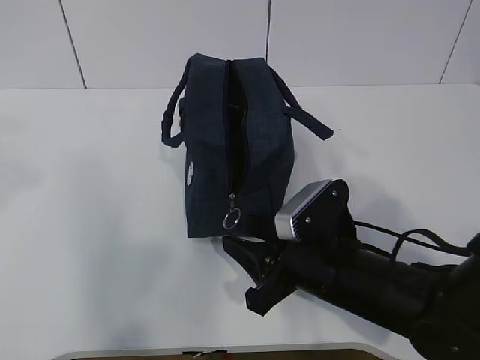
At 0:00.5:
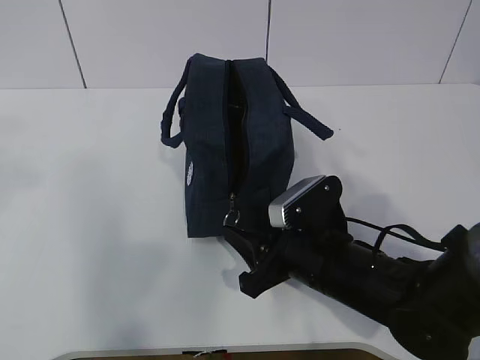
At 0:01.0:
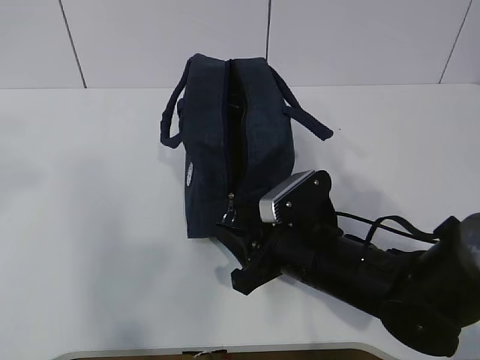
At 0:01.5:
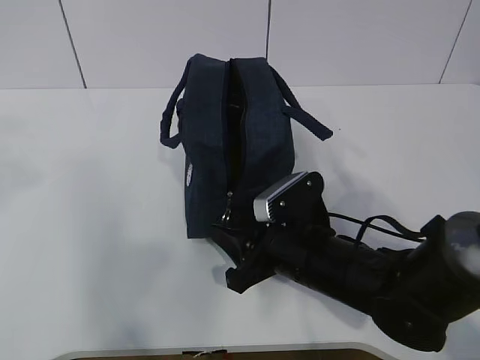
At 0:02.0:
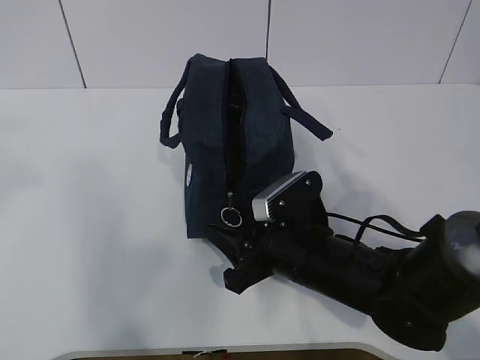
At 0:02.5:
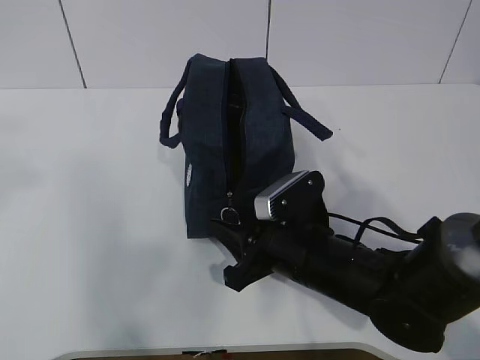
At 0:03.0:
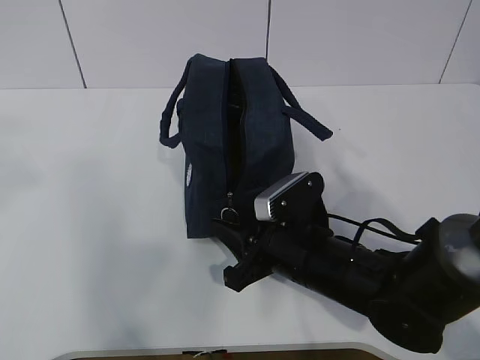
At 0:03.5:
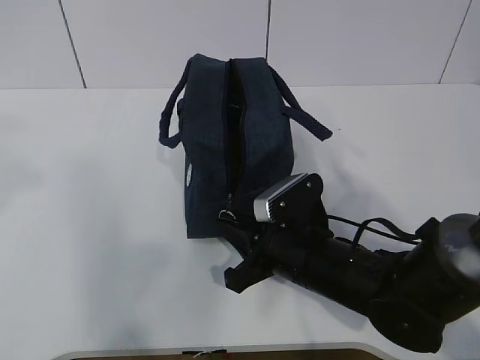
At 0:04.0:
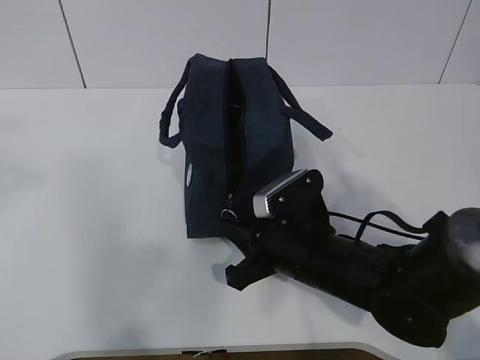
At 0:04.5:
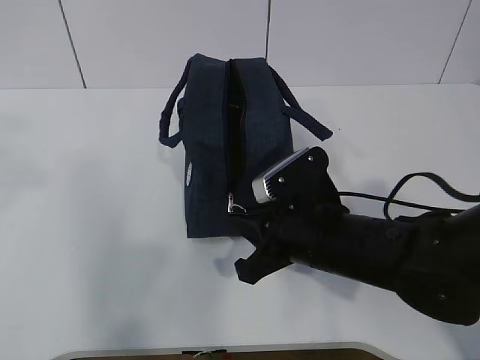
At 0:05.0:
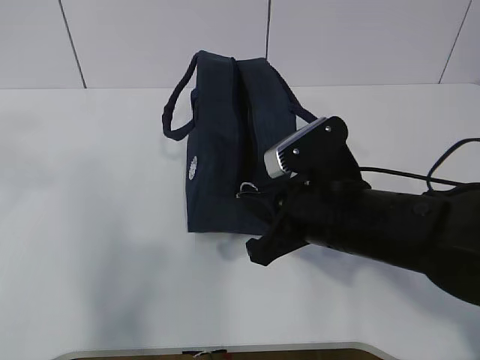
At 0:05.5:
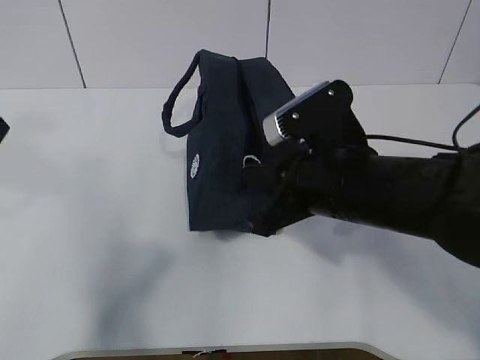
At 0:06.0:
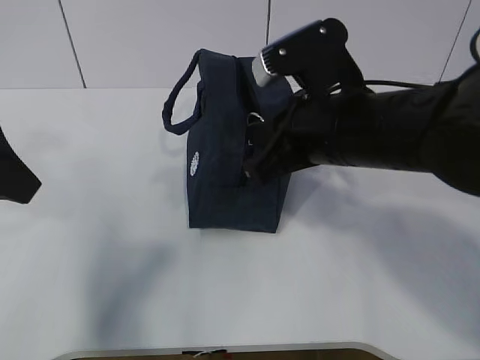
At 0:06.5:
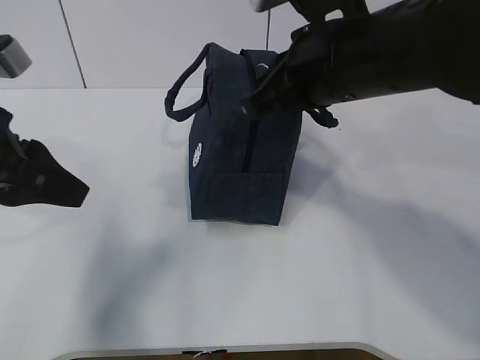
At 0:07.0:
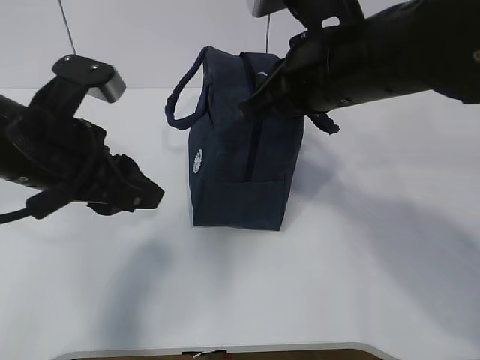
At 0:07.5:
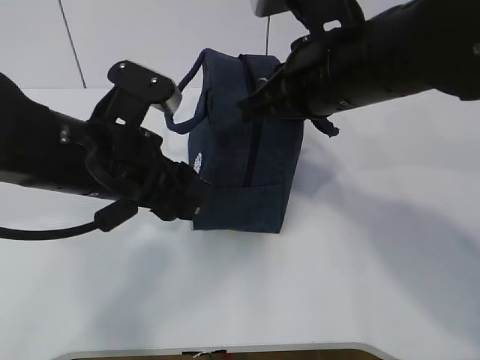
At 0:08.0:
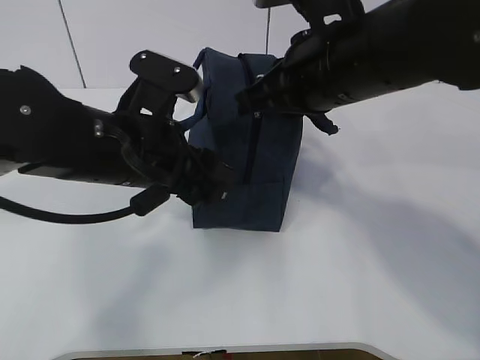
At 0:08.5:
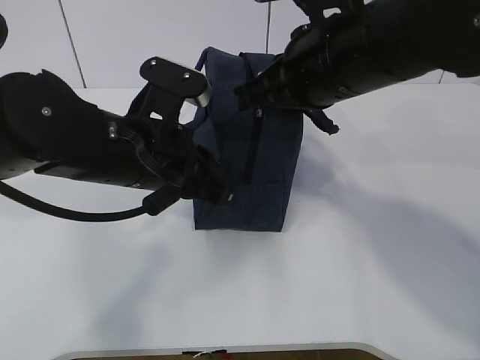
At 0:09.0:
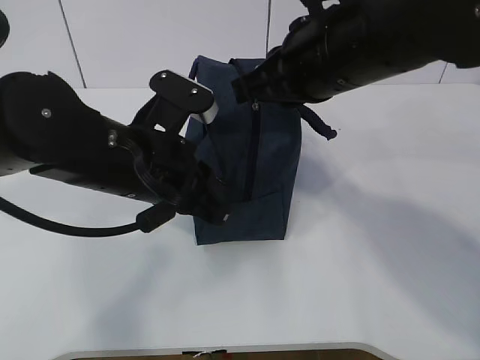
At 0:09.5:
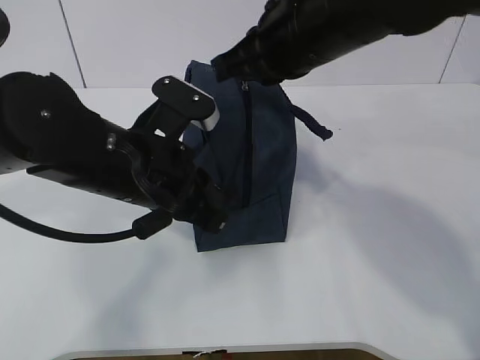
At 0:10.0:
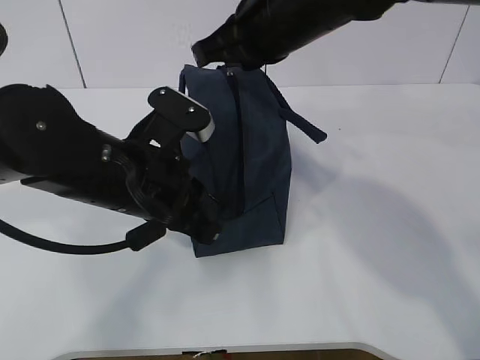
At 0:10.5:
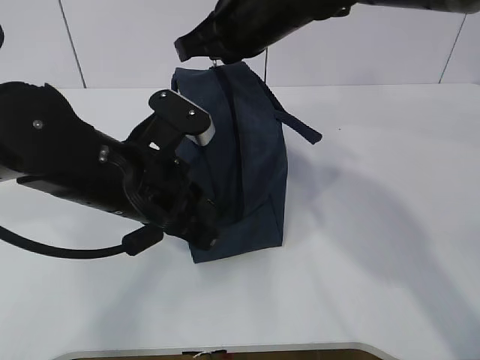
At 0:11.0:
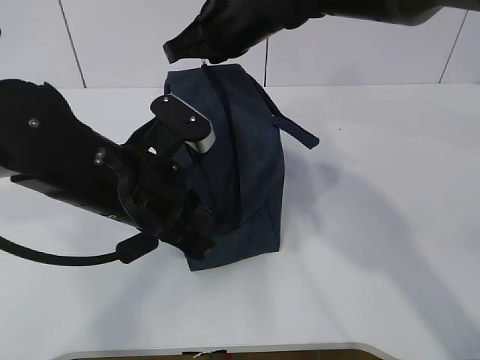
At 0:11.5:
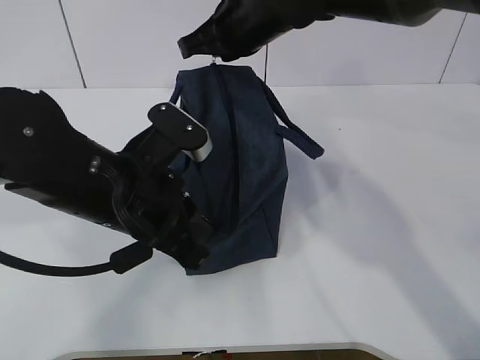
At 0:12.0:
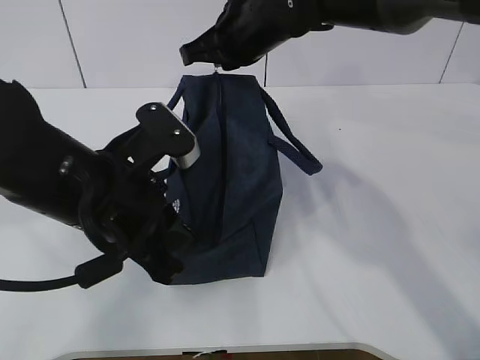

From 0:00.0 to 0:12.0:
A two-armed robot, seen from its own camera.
Step, from 0:03.0 to 0:08.0: Grab the lunch bag with your left hand.
From 0:00.0 to 0:02.0: The grippers move only a little.
From 0:02.0 to 0:04.0: The right gripper closes.
From 0:04.0 to 0:06.0: The right gripper heads upward, covering some 15 cm. The left gripper travels downward and forward by roughly 15 cm.
From 0:06.0 to 0:08.0: The right gripper shifts by approximately 5 cm, while the left gripper shifts approximately 15 cm to the right and downward.
From 0:08.0 to 0:10.0: The right gripper goes roughly 5 cm forward. Meanwhile the left gripper closes up.
From 0:10.0 to 0:12.0: The right gripper moves forward, some 10 cm.

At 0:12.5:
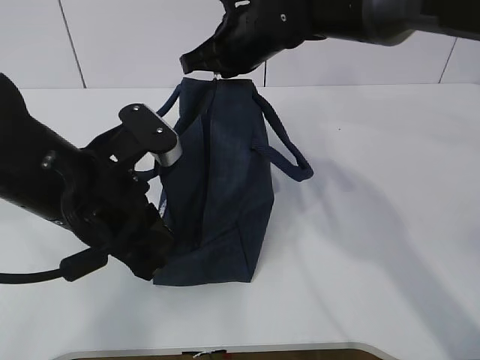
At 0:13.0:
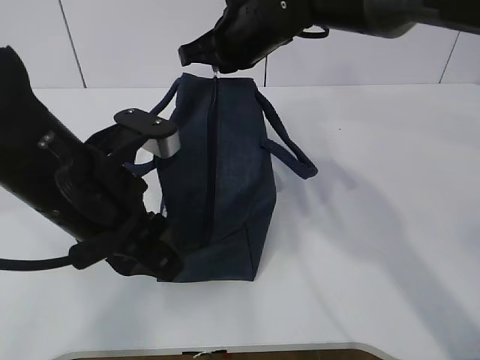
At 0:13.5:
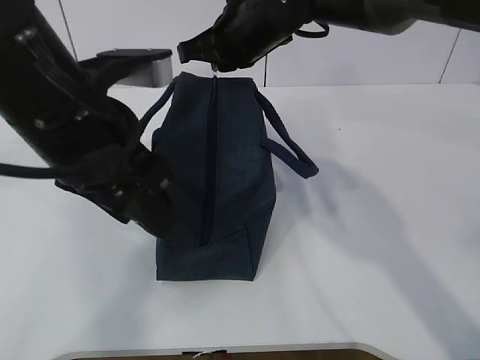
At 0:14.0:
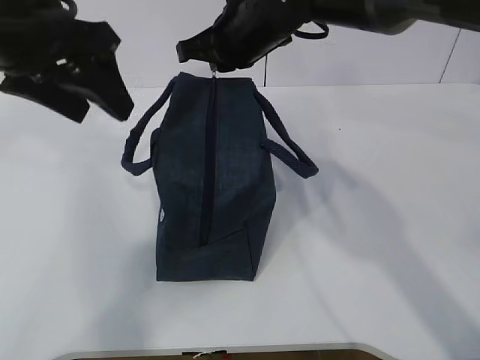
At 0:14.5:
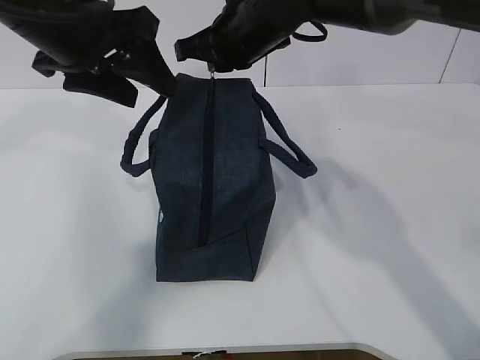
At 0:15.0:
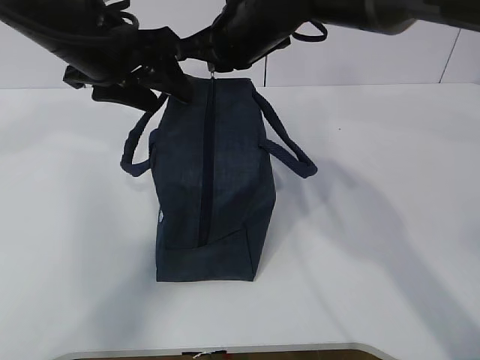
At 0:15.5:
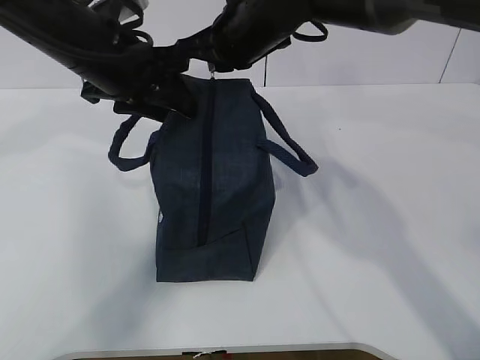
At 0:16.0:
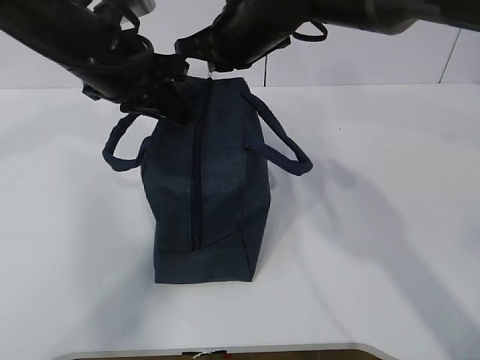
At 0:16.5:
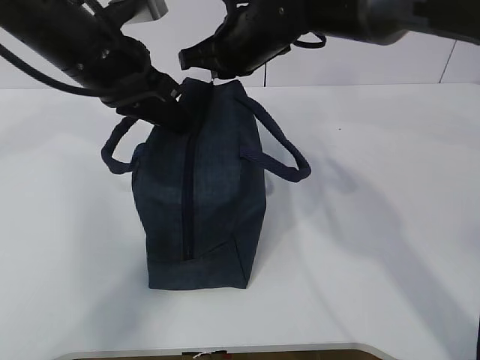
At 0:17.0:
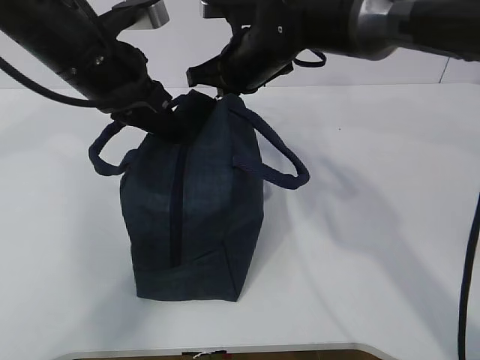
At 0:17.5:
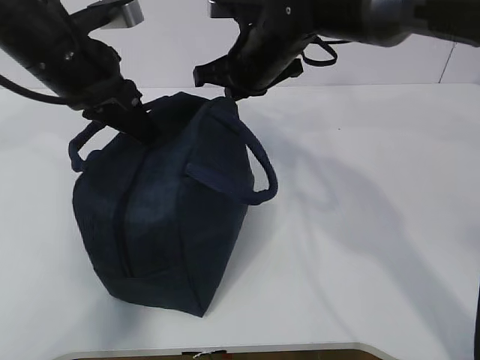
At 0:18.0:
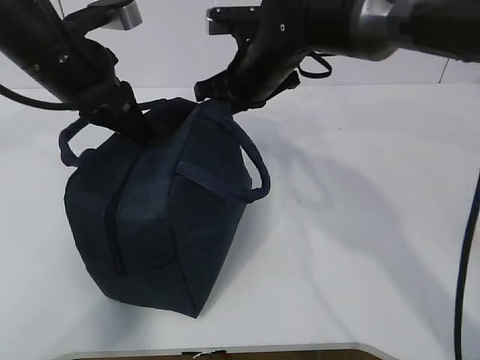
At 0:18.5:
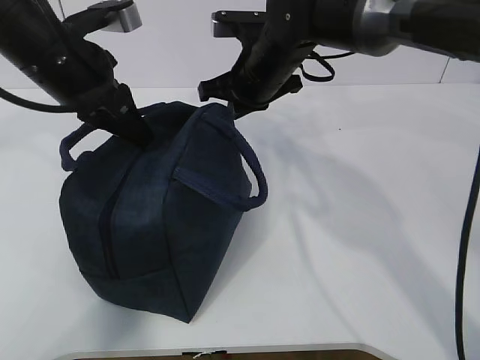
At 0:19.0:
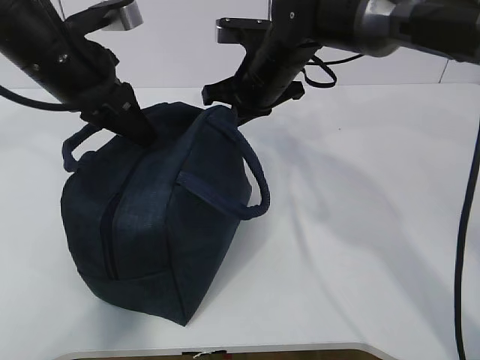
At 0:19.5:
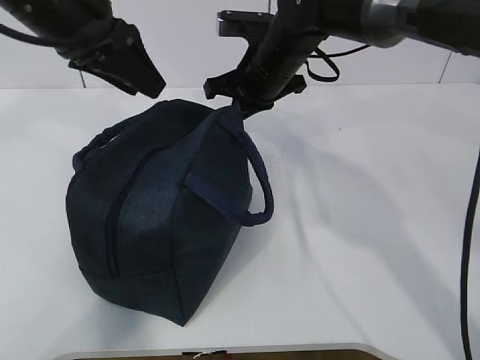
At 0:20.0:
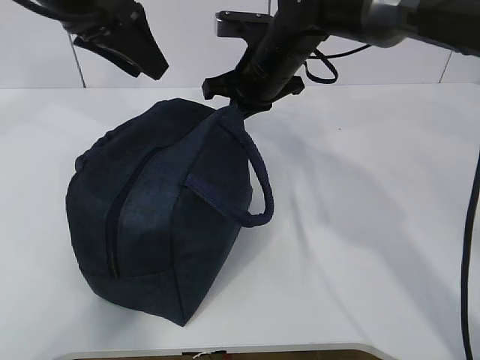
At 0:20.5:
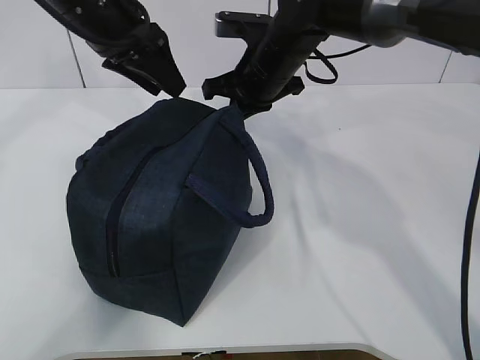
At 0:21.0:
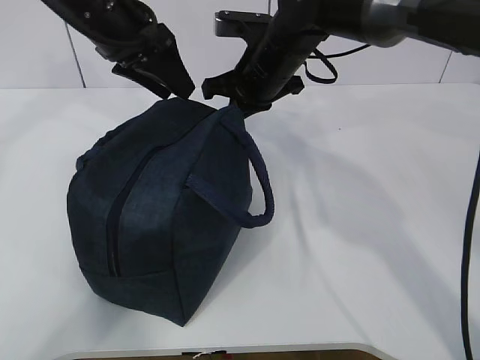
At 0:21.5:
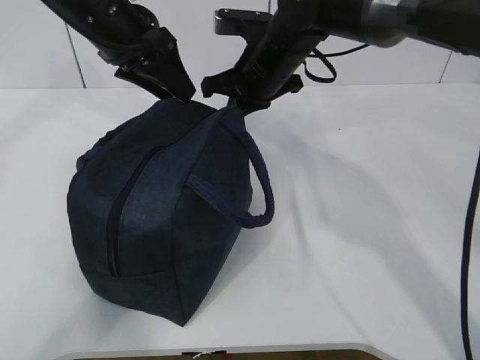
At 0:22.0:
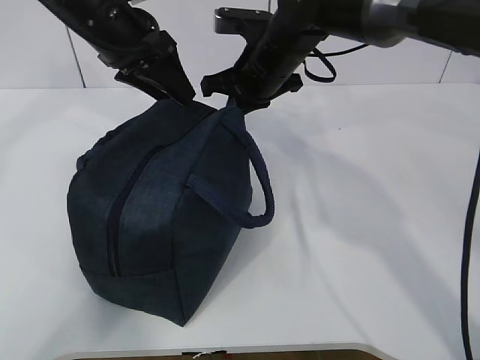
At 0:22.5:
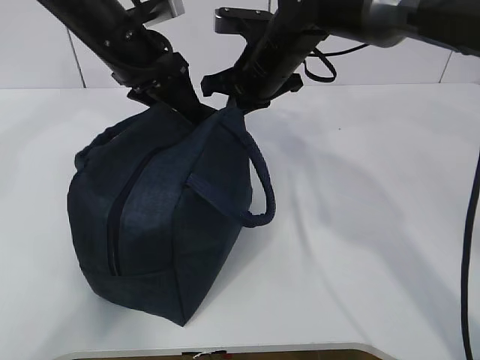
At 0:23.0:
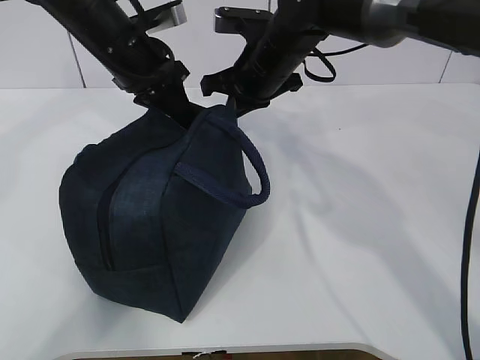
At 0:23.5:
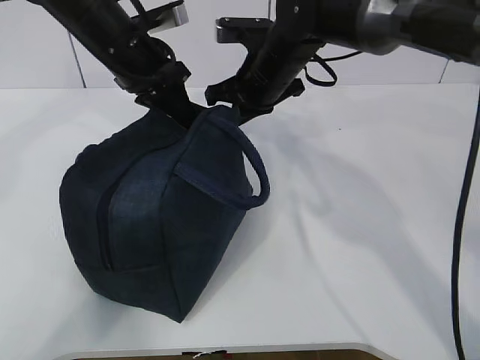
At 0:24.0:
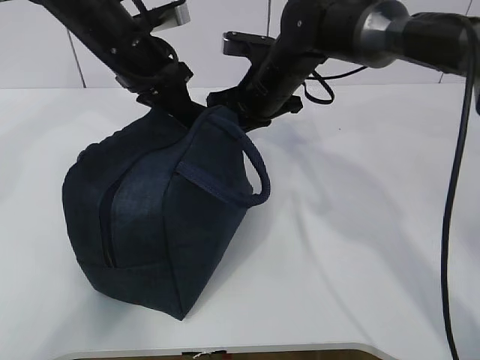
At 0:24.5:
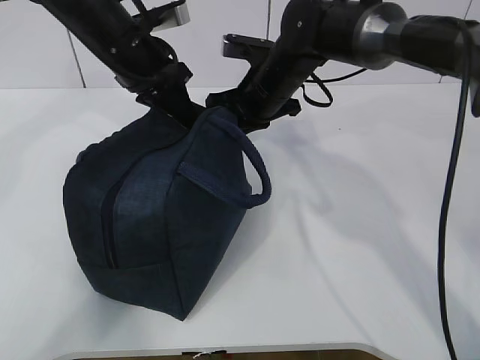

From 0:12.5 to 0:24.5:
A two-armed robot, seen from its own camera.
From 0:12.5 to 0:14.5: The left gripper is displaced upward and forward by approximately 15 cm, and opens up.
From 0:14.5 to 0:16.5: The left gripper is displaced downward by roughly 5 cm, and closes up.
From 0:18.5 to 0:20.5: The left gripper shifts approximately 5 cm forward, and opens up.
From 0:20.5 to 0:22.5: There are only small adjustments of the grippers.
From 0:22.5 to 0:24.5: The left gripper closes its fingers.

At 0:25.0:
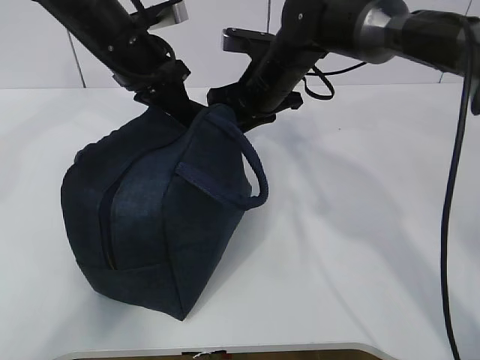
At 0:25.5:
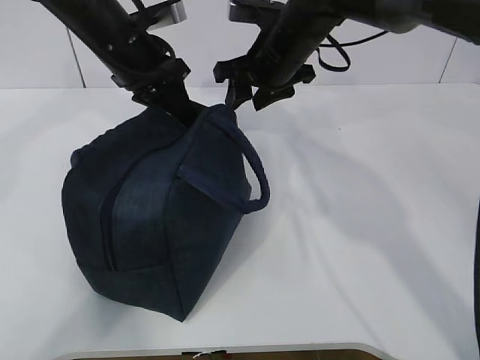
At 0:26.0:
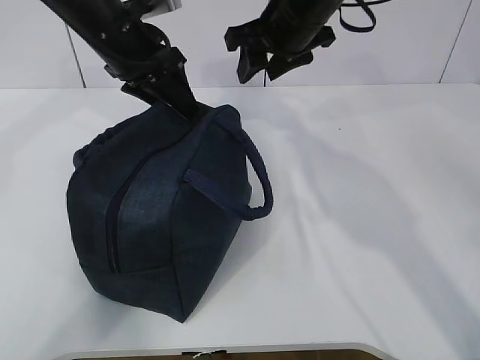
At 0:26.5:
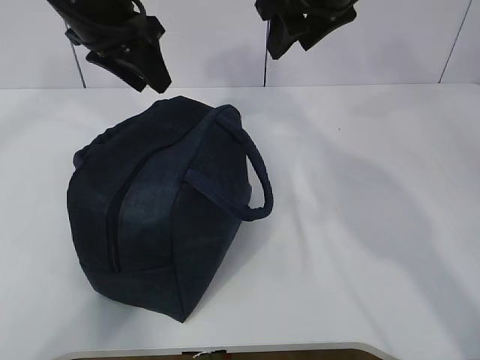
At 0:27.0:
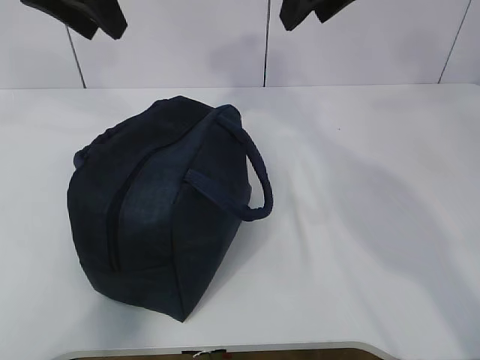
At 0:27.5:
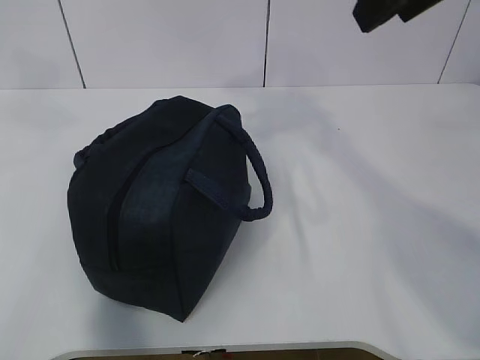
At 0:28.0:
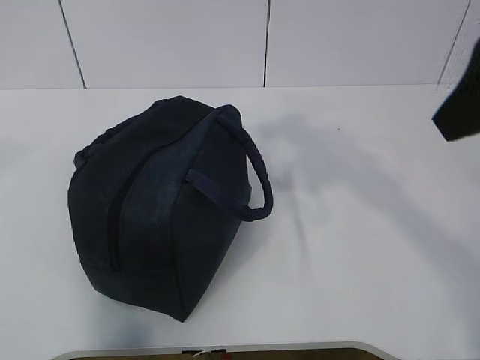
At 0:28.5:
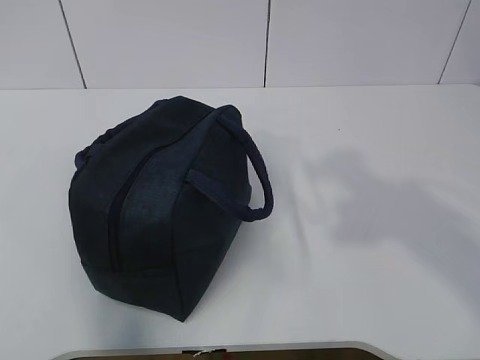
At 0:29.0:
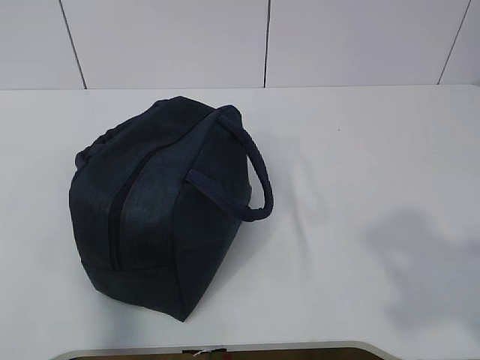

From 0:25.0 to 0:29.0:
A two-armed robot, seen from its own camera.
From 0:25.0 to 0:27.0: The two grippers go about 20 cm upward and backward. The right gripper opens its fingers, while the left gripper opens its fingers.
From 0:27.0 to 0:29.0: The right gripper shifts roughly 40 cm backward and to the right, while the left gripper heads backward, covering approximately 40 cm.
